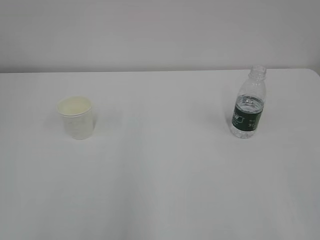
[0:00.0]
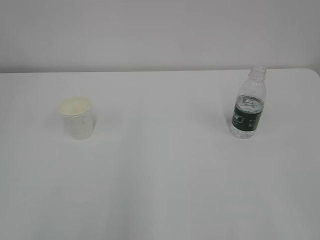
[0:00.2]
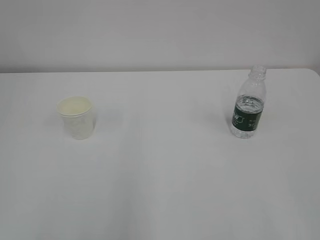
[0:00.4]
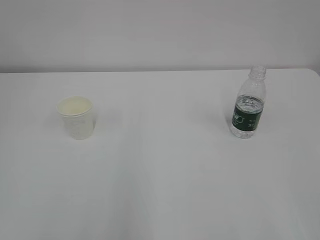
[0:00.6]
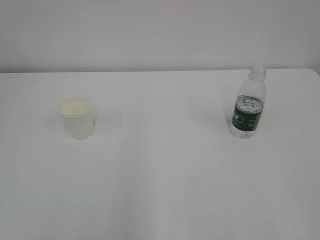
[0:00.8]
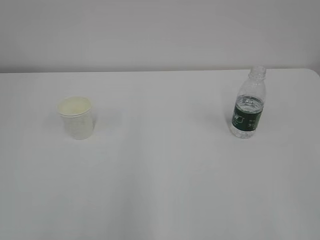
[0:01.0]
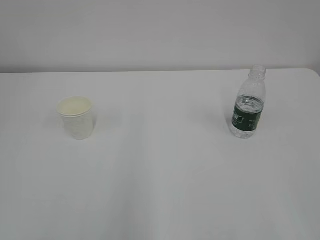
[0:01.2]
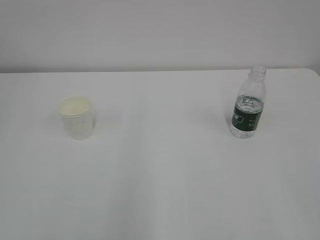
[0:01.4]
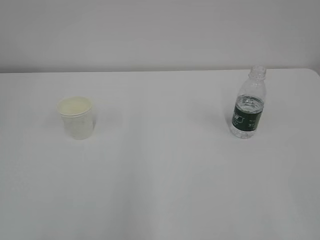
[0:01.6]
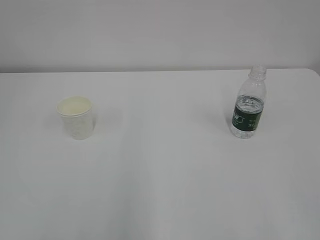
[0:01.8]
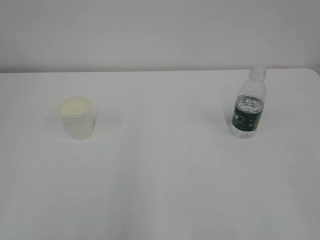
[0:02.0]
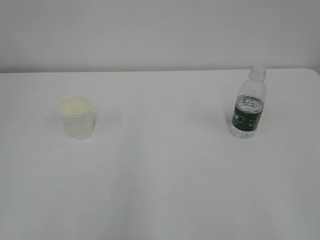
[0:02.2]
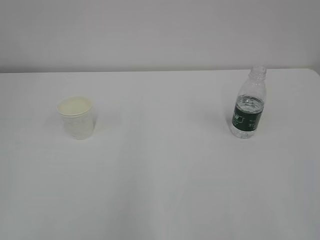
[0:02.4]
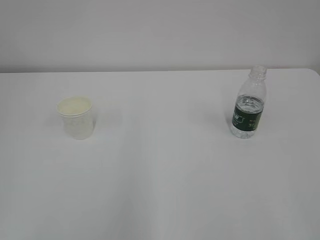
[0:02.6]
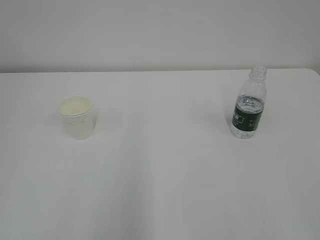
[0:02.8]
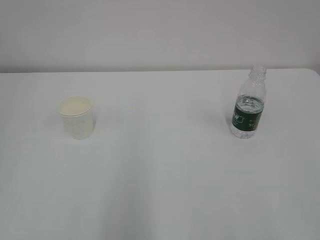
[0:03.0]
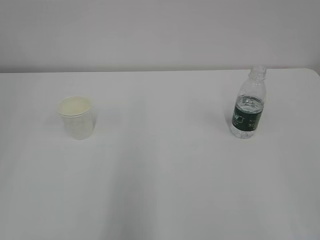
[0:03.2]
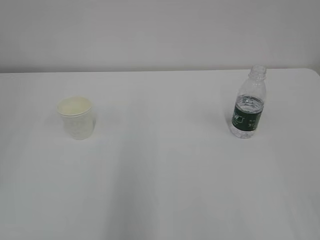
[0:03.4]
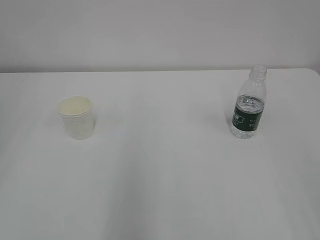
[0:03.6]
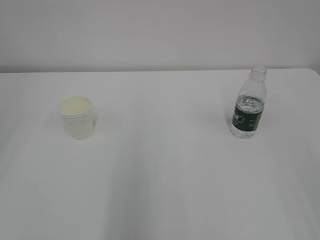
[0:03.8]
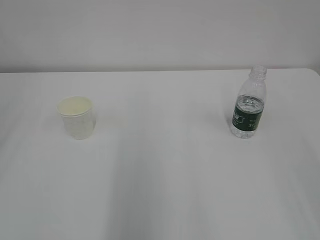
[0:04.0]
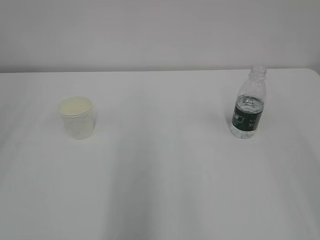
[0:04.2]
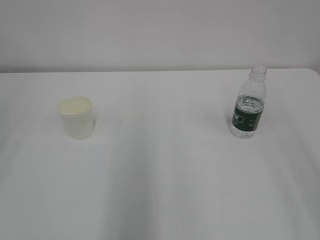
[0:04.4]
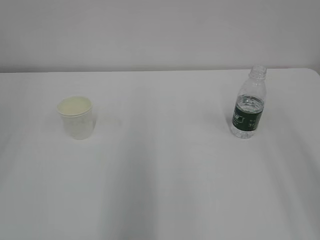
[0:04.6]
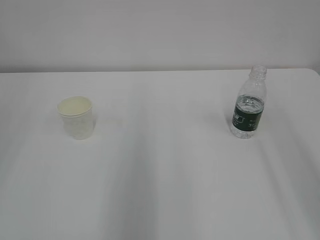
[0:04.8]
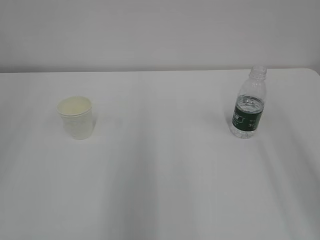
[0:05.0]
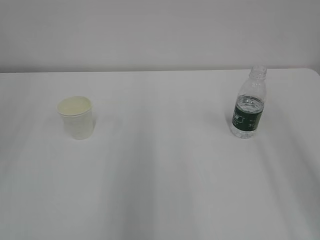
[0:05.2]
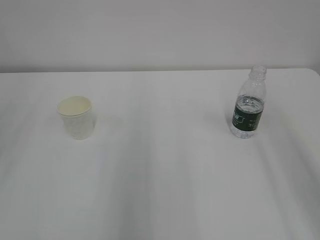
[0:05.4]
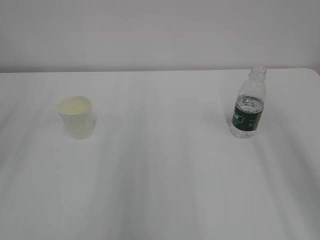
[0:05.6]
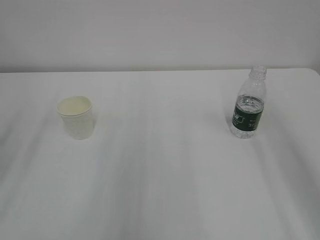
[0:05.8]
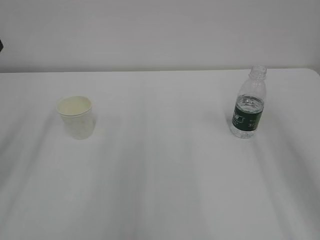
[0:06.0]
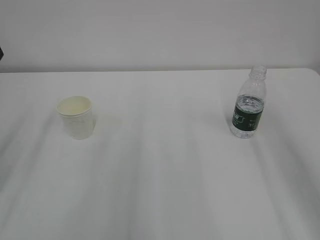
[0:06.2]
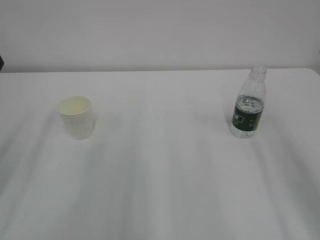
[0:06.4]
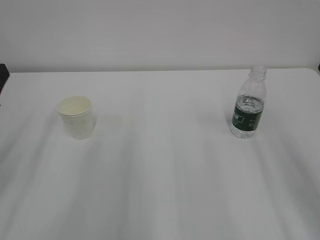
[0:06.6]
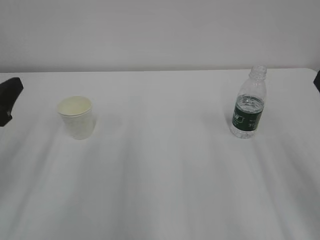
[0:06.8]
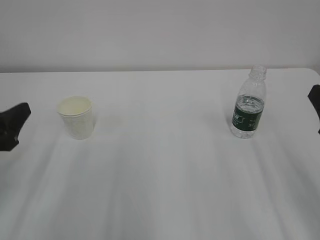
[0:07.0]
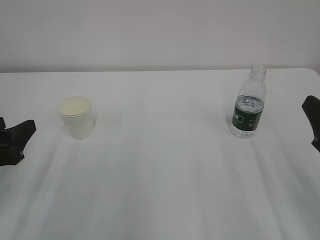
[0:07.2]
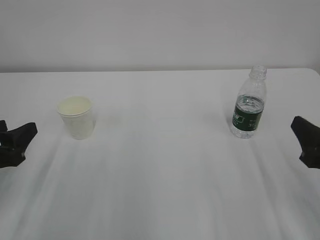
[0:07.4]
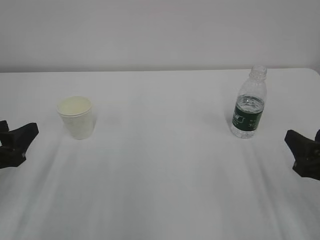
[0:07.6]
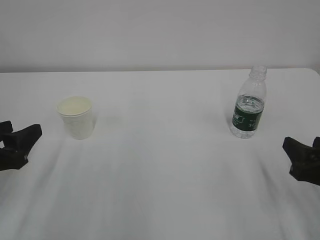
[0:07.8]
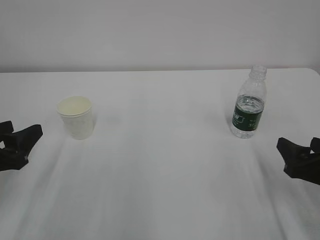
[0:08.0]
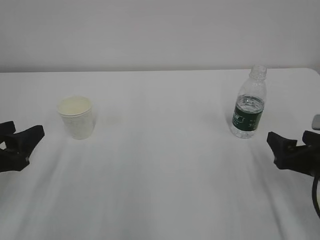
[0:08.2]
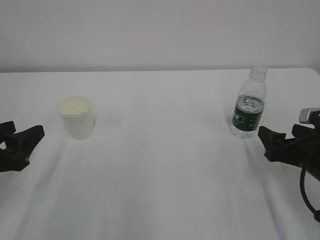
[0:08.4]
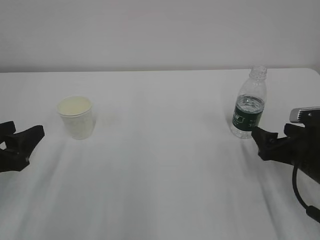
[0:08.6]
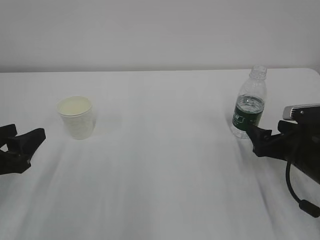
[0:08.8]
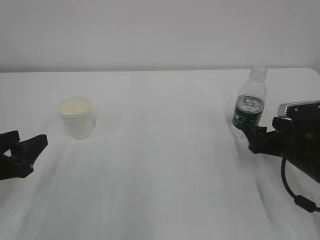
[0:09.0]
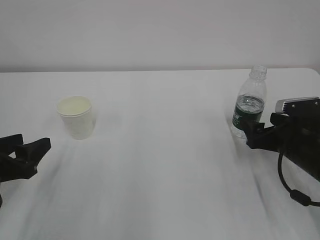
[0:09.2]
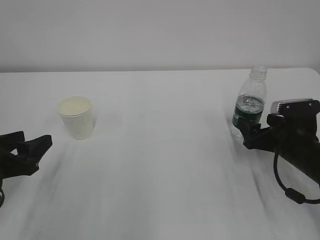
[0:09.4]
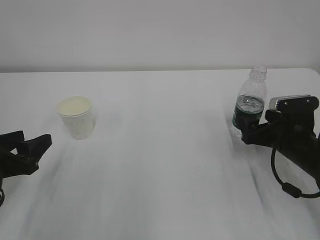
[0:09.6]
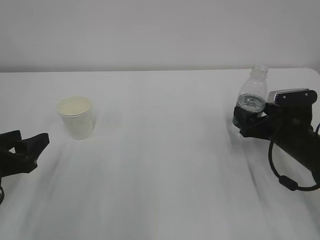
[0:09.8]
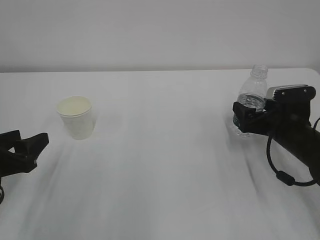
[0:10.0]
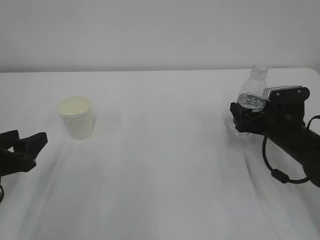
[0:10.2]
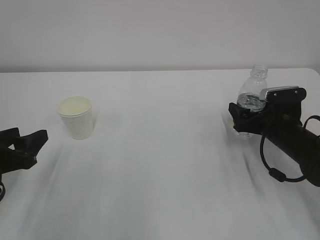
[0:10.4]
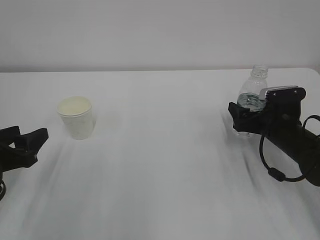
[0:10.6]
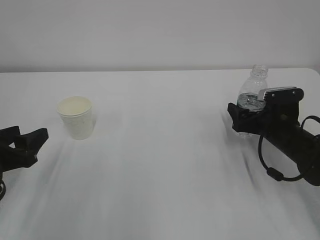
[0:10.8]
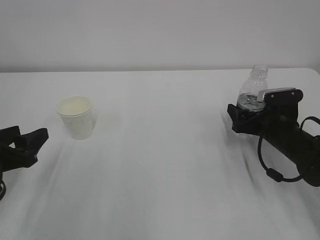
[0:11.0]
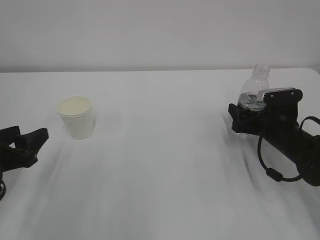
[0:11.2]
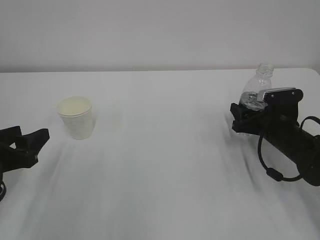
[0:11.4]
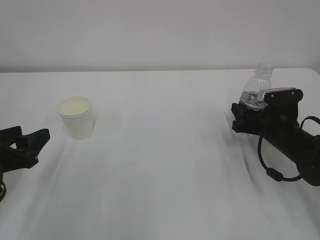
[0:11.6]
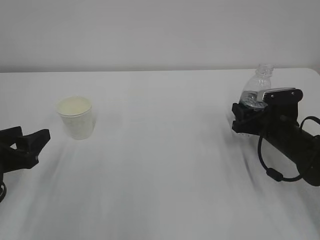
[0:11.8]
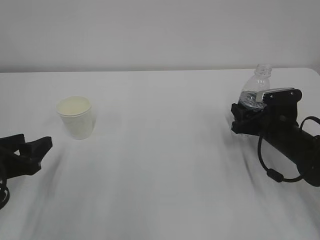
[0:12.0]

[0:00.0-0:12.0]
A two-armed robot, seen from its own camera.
0:06.0 to 0:07.6: The right gripper goes approximately 20 cm downward. The left gripper shifts about 10 cm downward.
0:07.6 to 0:09.0: The right gripper is displaced forward and downward by some 10 cm, and opens.
0:09.0 to 0:10.4: The right gripper goes about 5 cm forward.
0:10.4 to 0:12.0: The right gripper closes up.

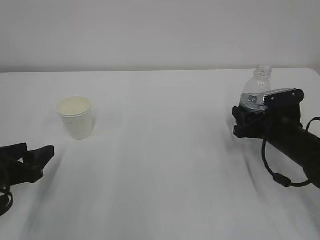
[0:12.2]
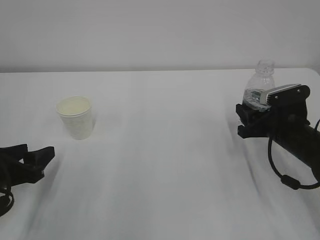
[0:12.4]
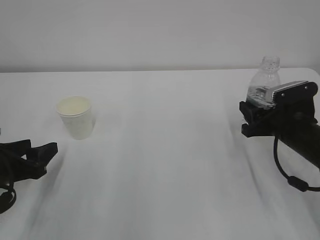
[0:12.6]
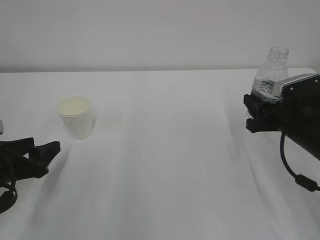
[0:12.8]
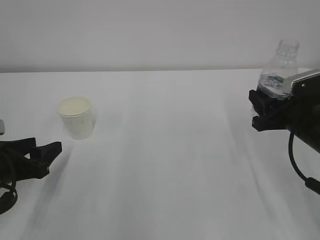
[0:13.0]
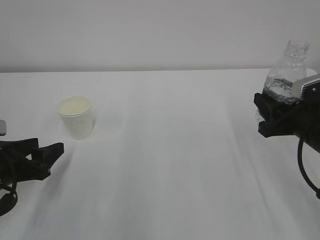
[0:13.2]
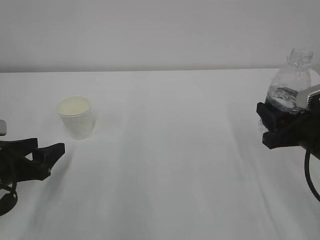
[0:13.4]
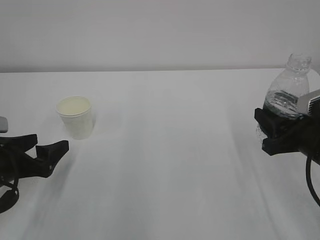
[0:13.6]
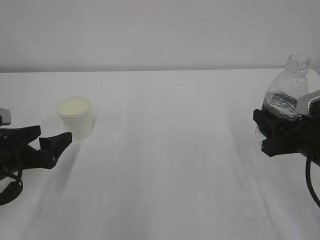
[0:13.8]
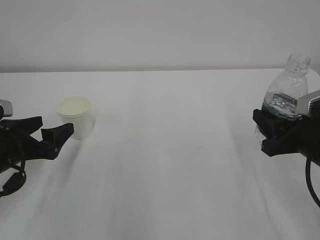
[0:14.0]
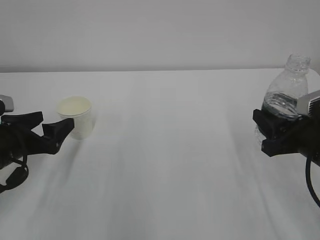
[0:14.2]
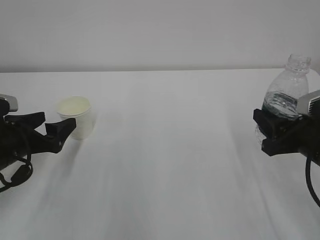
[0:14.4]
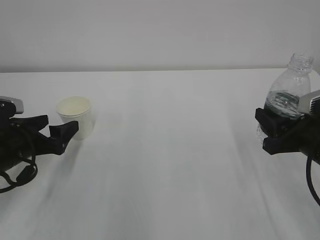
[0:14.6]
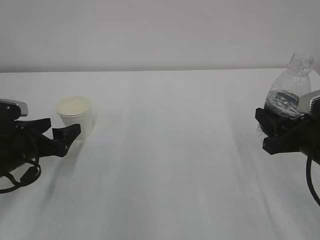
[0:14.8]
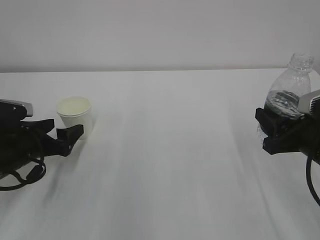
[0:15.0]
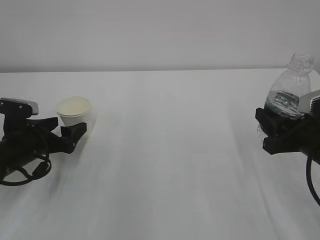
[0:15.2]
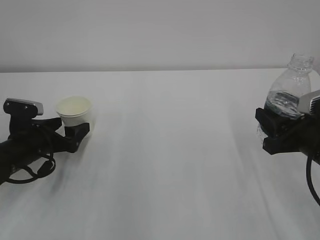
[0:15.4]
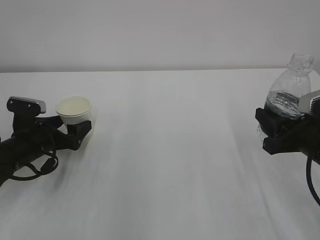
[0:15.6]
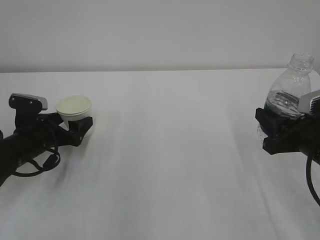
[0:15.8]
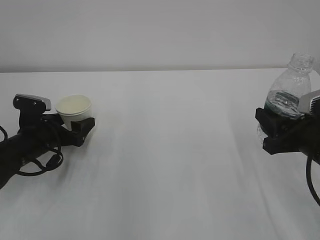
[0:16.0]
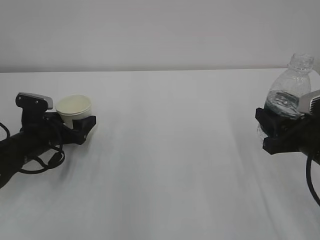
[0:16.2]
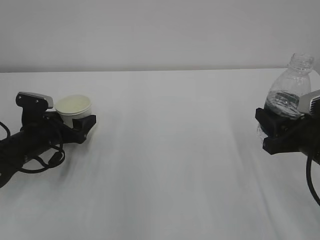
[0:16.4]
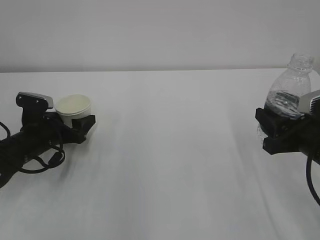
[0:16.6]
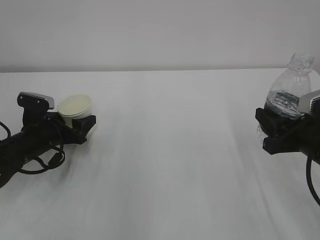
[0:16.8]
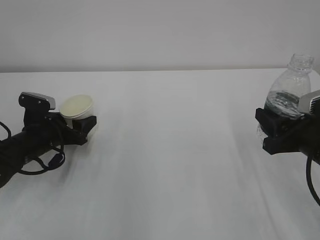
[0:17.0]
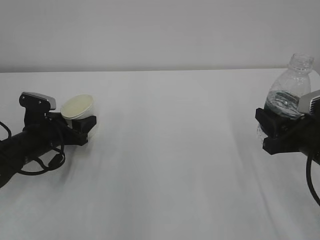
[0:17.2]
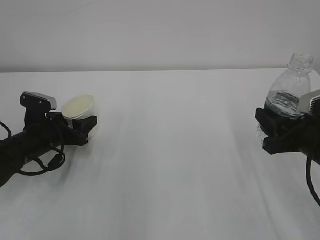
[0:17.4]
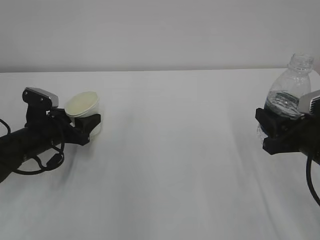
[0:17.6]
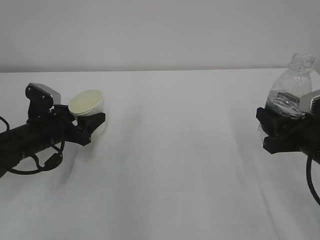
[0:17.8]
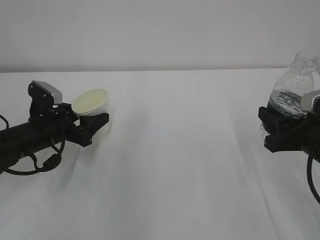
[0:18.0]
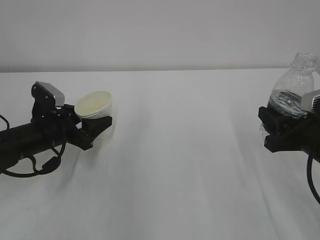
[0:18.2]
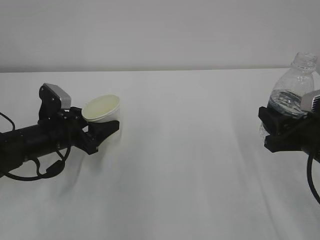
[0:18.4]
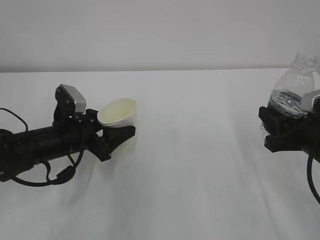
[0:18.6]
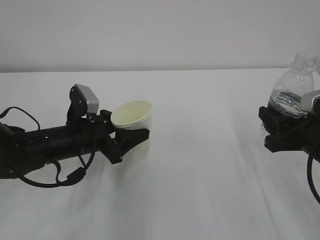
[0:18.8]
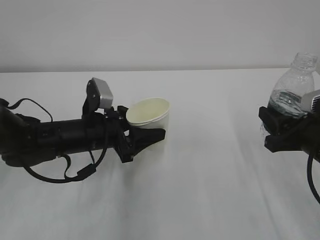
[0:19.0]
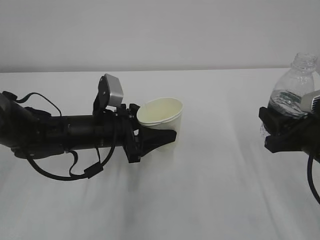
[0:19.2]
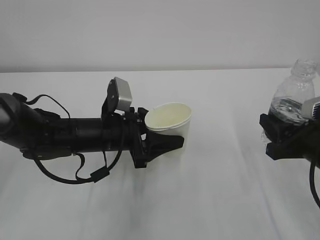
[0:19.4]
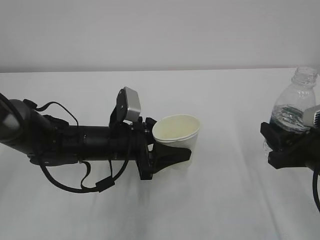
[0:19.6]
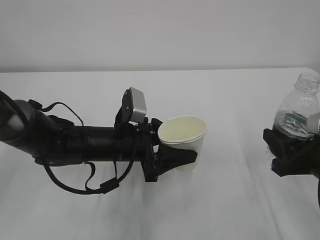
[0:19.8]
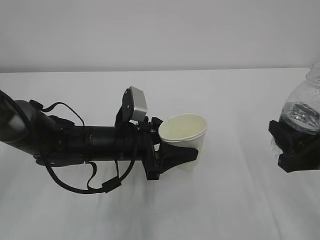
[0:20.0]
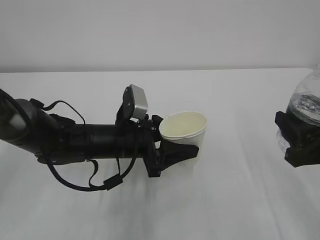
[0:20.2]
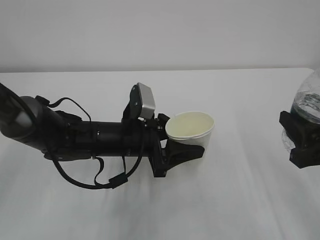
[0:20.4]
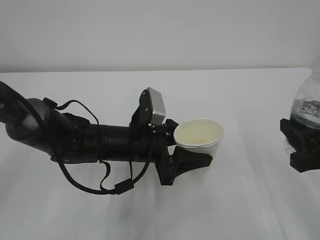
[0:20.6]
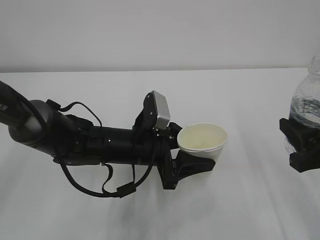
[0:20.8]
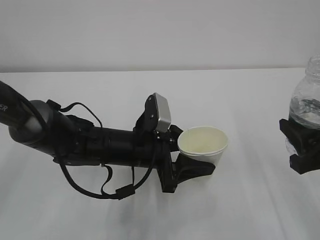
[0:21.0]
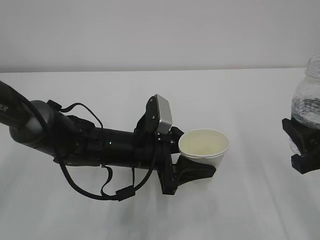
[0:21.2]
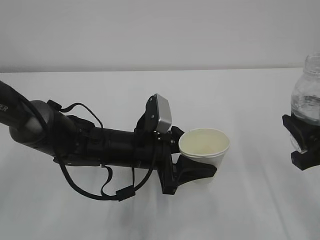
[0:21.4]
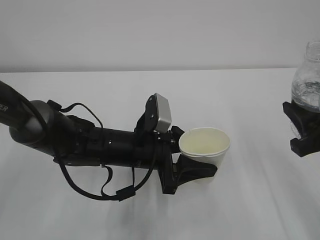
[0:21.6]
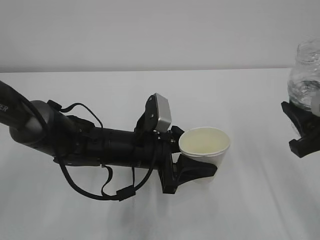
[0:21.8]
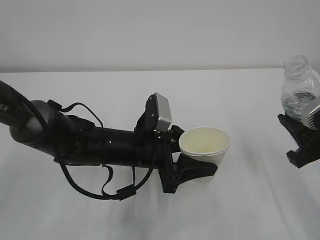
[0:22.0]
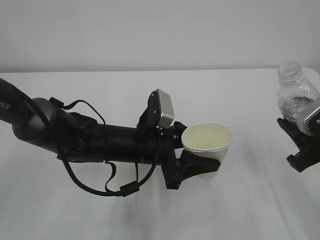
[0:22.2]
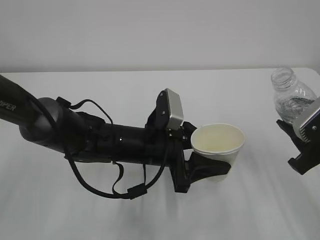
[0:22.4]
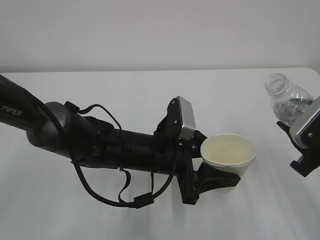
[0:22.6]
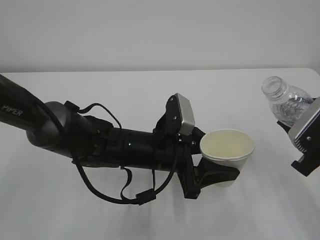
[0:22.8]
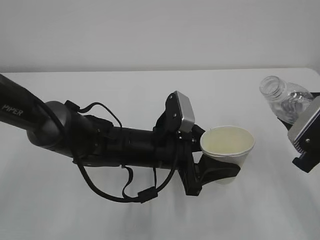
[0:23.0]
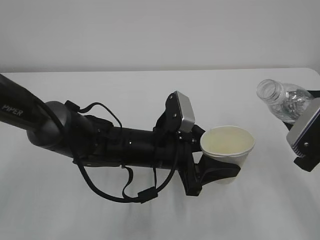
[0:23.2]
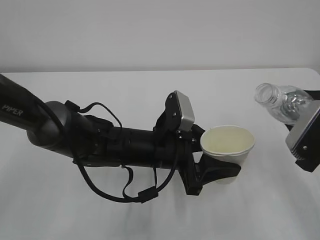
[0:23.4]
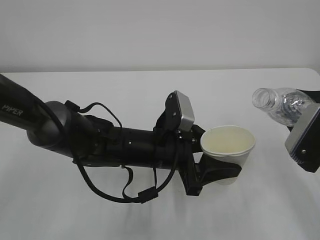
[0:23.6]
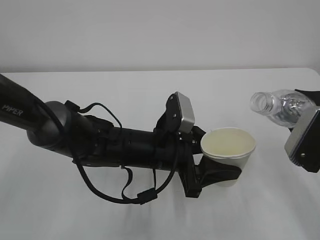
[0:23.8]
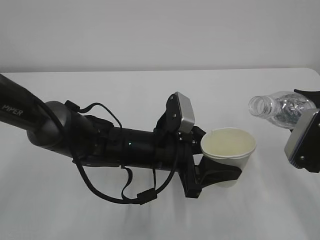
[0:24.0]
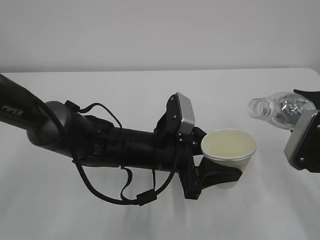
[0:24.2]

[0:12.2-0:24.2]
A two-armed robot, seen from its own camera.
0:12.2 to 0:13.8: The left gripper opens up, while the right gripper goes some 15 cm backward and upward.
0:13.8 to 0:15.2: The left gripper shifts roughly 5 cm forward.
0:15.2 to 0:16.6: The left gripper closes up.
0:16.6 to 0:18.2: The left gripper closes its fingers.
0:18.2 to 0:19.8: The left gripper heads to the right, covering roughly 15 cm.
0:19.8 to 0:21.2: The right gripper ends up approximately 5 cm from where it was.
